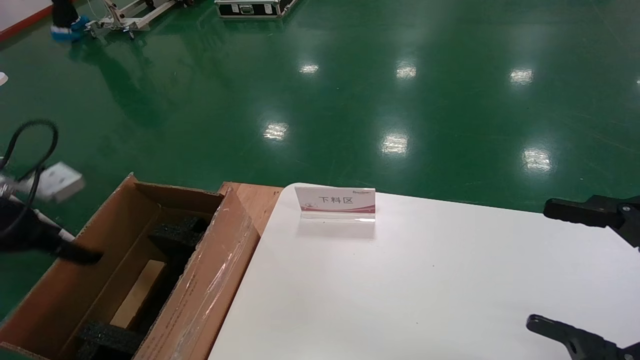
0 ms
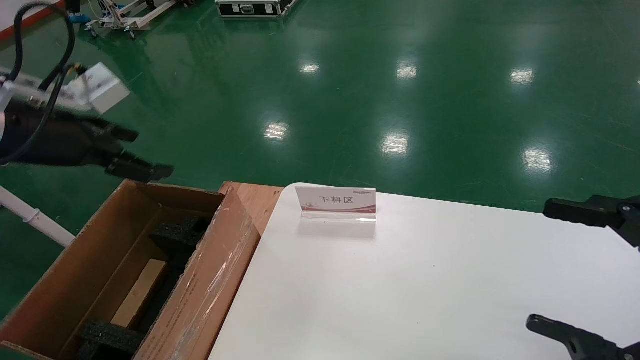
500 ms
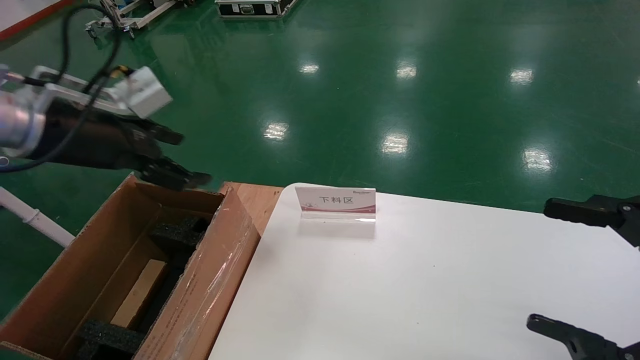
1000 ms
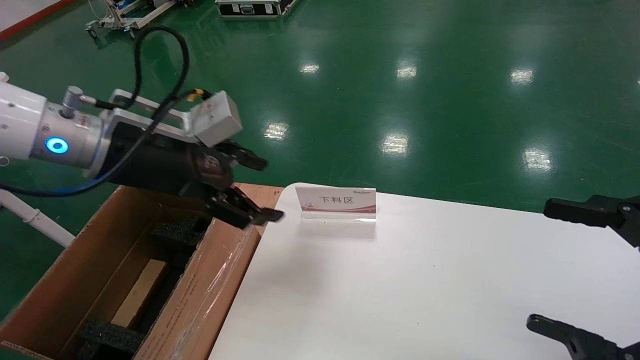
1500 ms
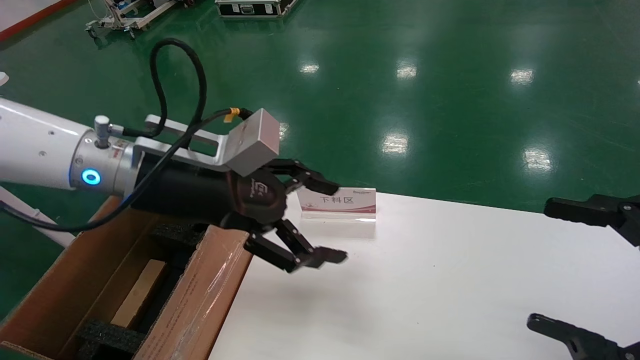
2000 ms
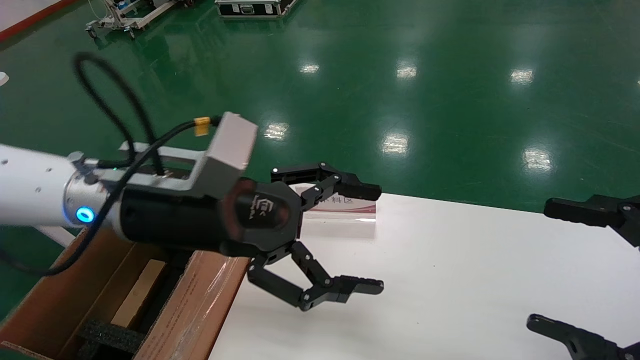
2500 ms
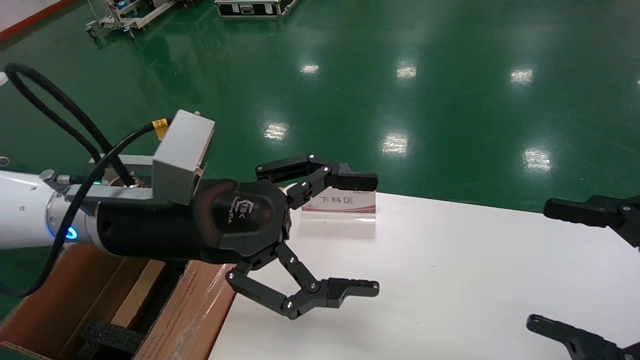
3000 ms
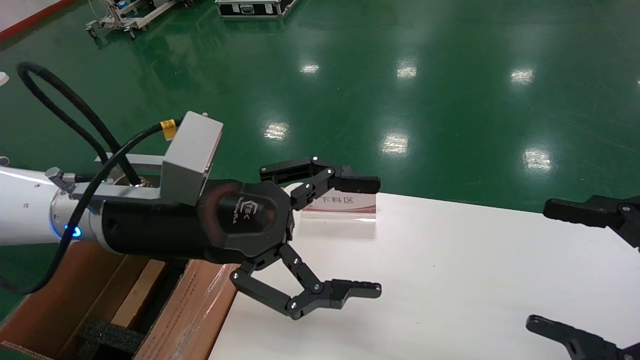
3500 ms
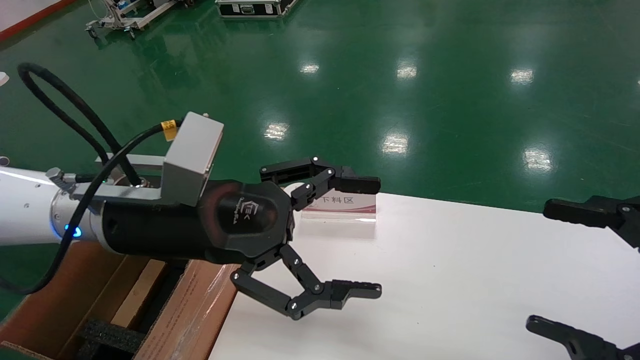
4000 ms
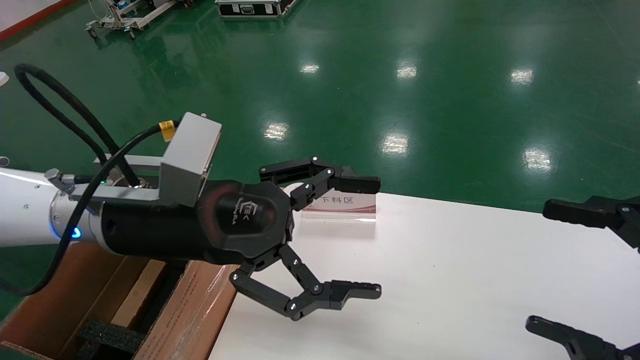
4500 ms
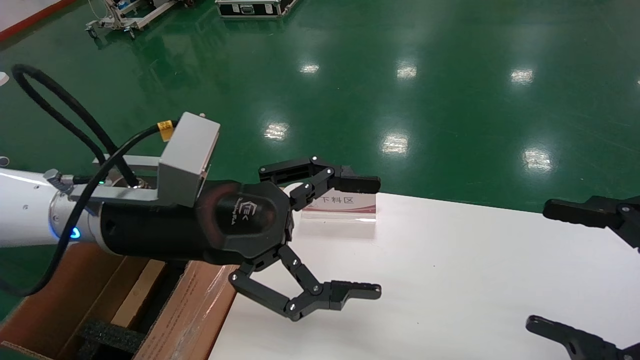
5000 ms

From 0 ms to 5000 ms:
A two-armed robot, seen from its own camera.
Task of the whole recording: pick up the small cardboard box and load it into the large cardboard box.
From 0 ms to 2500 ms: The left gripper shifts roughly 25 cm to the right.
From 2500 ms to 5000 ms: The grippers move only a little.
